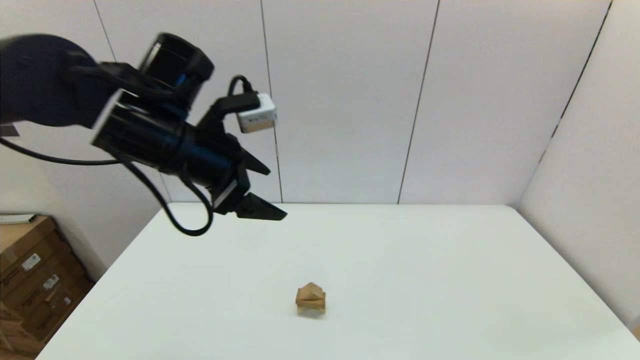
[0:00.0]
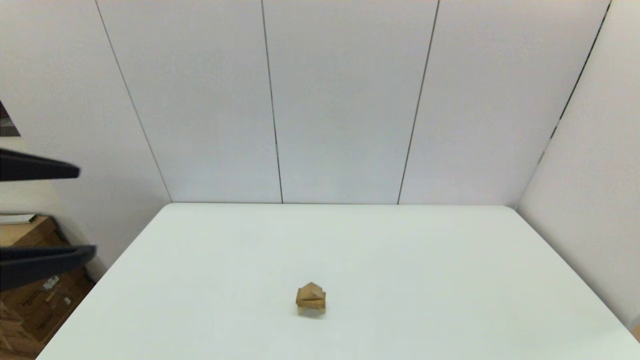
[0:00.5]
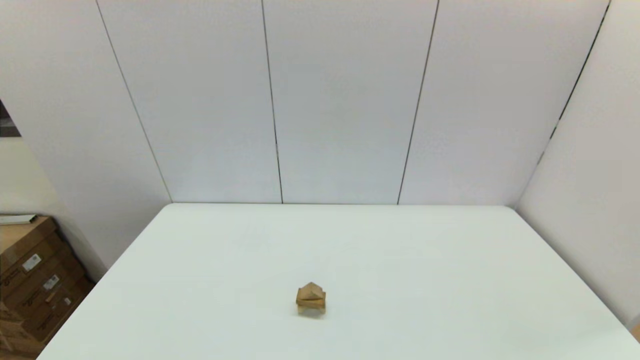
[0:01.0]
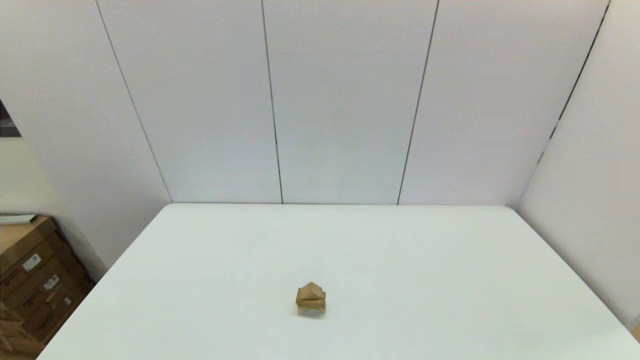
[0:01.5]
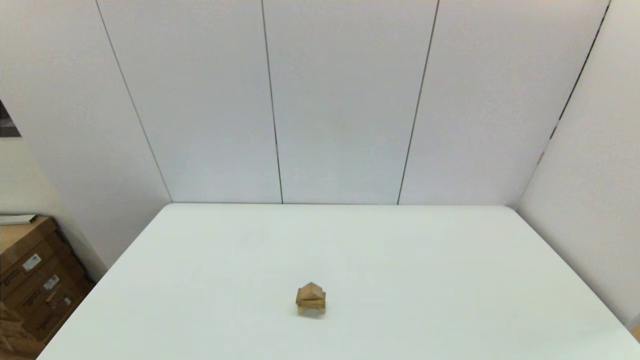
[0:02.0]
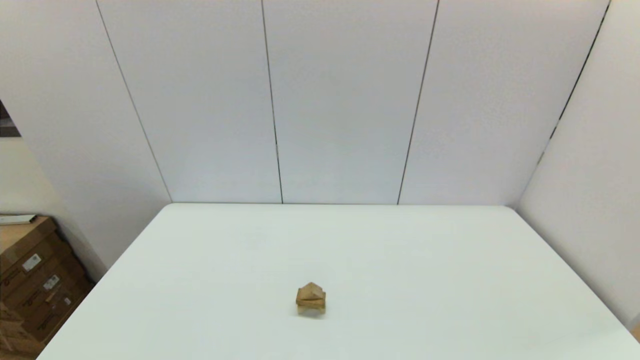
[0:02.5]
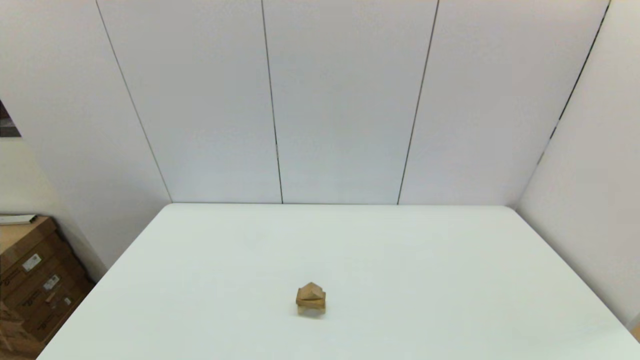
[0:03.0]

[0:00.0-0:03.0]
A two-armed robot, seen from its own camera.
Task of the whole recording: place the arched building blocks in the center of the table, set up the rectangular building blocks, and then set up the triangular building blocks.
0:00.0 to 0:01.5: The left gripper shifts approximately 35 cm backward.
